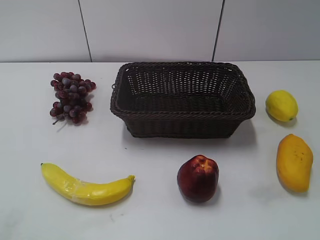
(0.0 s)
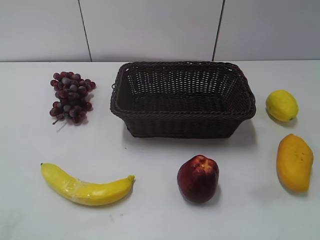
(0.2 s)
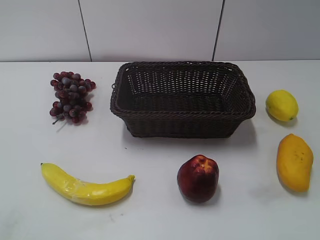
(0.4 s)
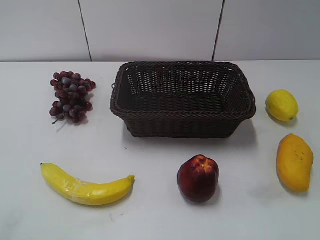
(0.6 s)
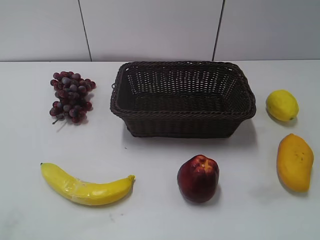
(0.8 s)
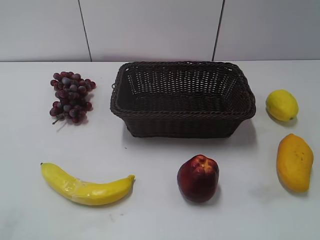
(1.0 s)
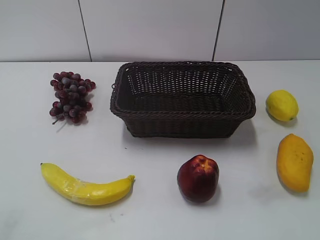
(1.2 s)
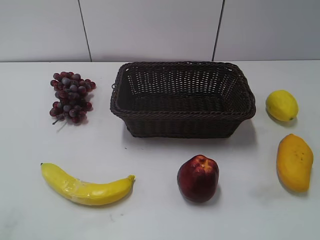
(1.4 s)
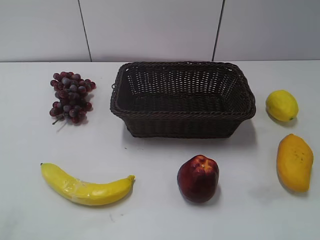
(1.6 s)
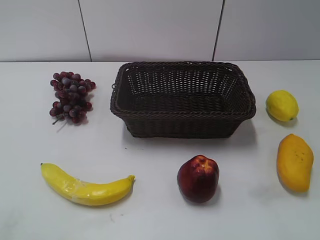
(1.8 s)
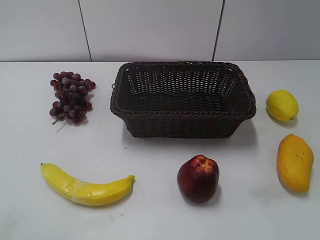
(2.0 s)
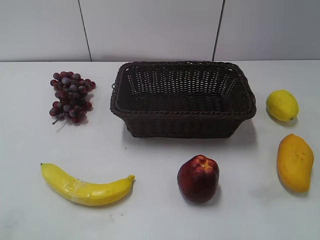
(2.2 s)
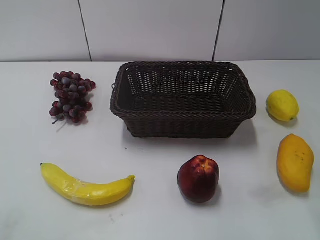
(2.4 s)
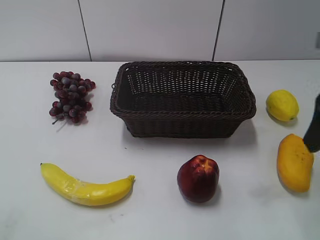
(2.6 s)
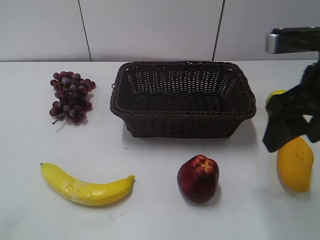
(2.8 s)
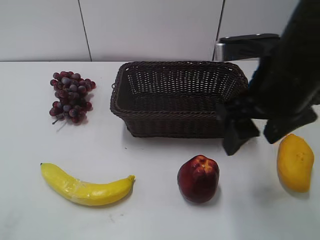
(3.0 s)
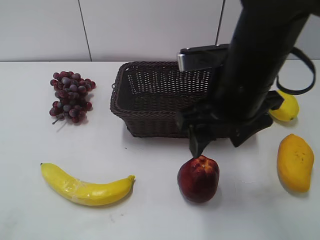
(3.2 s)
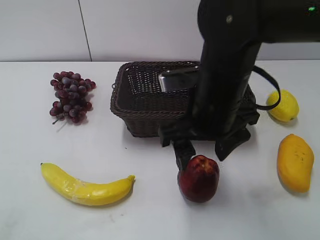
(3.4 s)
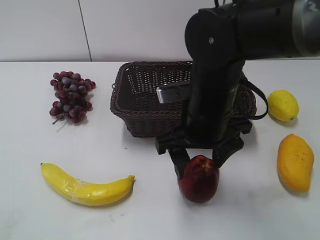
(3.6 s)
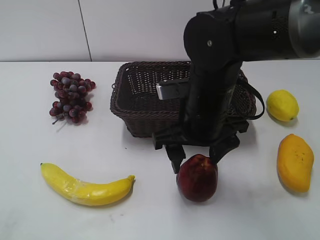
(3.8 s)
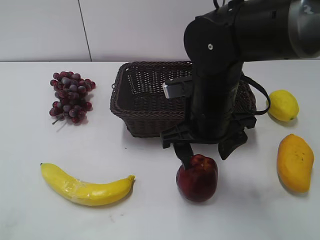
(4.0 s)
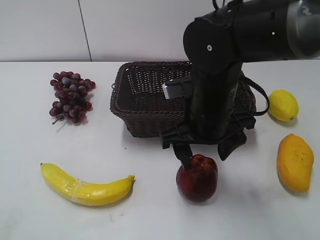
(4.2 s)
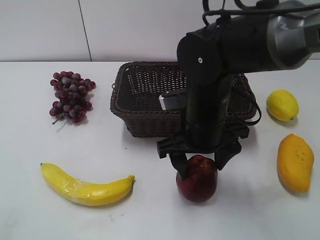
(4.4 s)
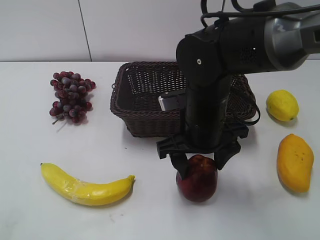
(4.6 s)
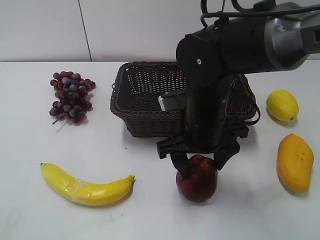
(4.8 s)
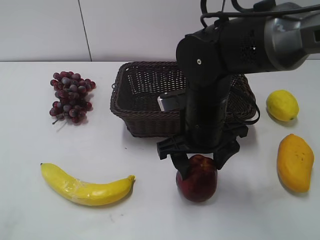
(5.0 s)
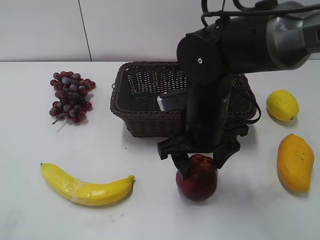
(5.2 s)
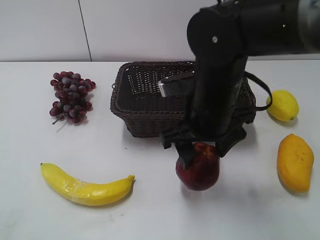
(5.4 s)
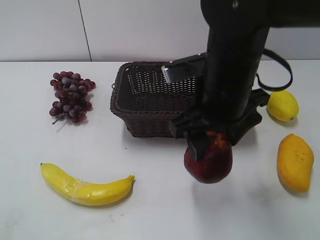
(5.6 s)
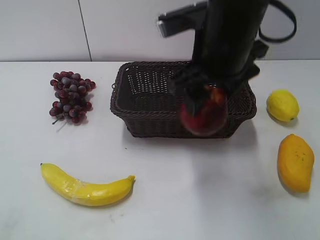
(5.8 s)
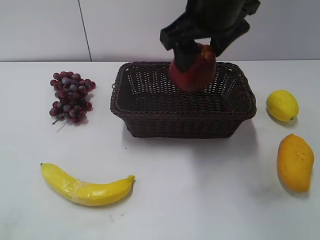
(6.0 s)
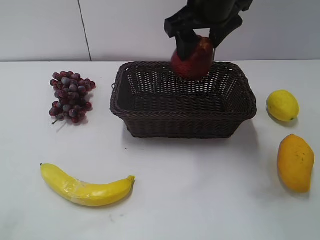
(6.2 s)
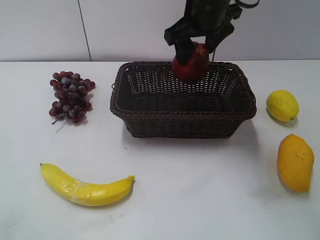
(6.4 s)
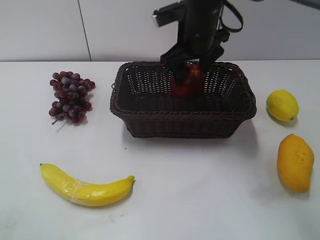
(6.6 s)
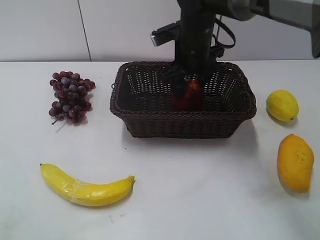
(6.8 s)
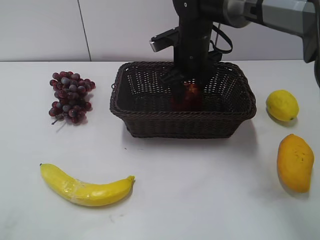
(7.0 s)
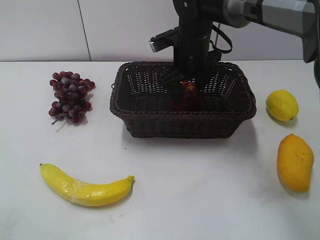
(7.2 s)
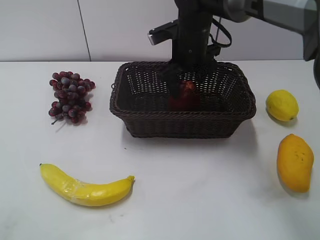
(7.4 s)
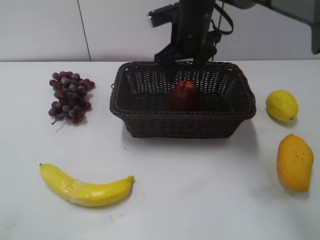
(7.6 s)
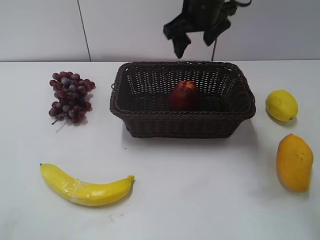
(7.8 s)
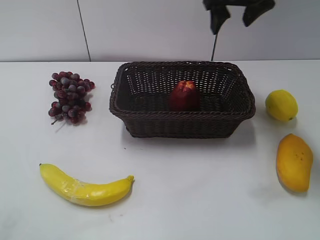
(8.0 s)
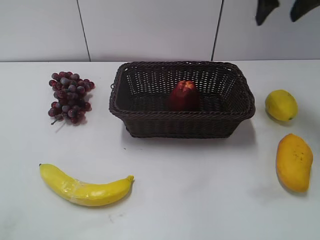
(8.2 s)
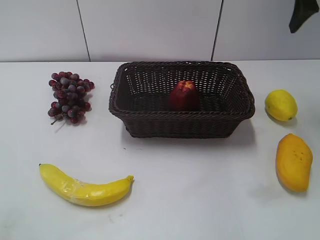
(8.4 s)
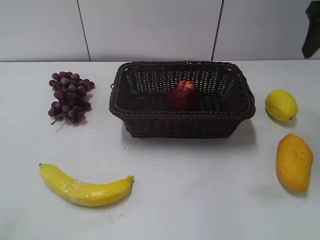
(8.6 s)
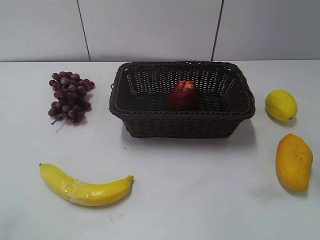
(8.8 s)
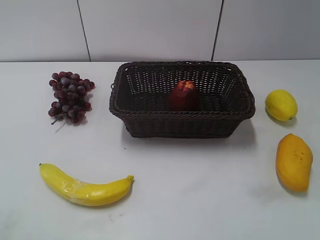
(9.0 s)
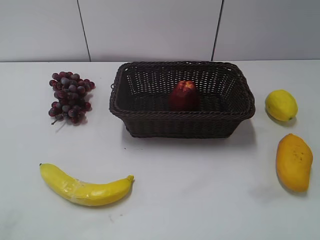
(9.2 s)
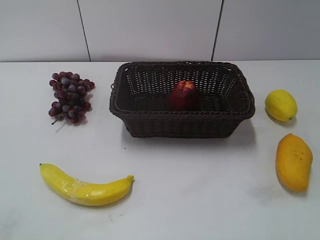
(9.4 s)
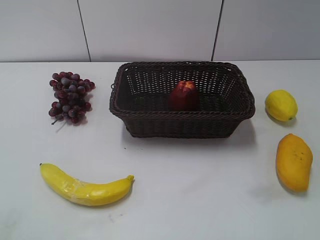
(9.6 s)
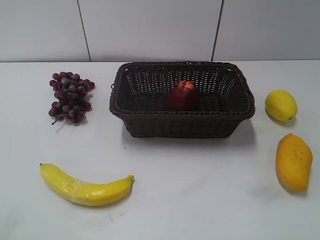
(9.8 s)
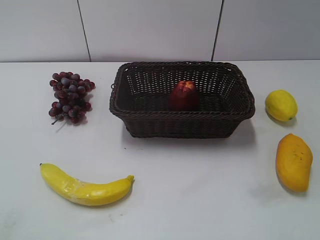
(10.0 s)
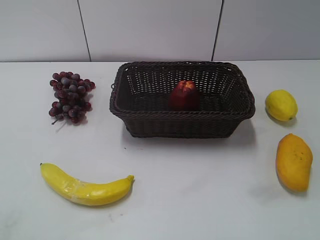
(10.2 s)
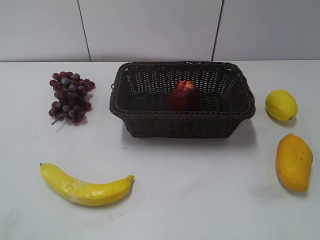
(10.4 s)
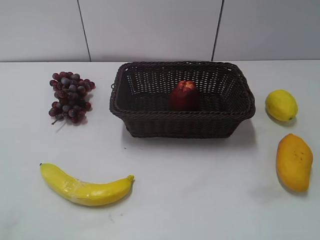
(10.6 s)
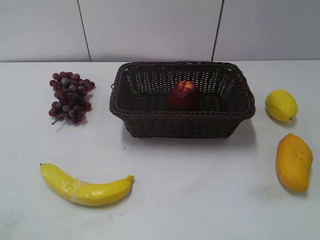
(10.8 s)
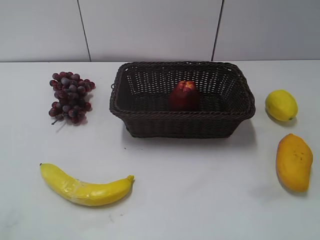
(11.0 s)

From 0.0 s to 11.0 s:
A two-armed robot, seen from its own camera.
Step, from 2.6 s to 4.6 s: Grasp the apple with right gripper.
Step, from 4.8 s to 7.0 s: Place the apple in the basket with right gripper.
From 1.6 s to 3.2 s: The right gripper moves to the left, forward and downward, roughly 30 cm.
From 3.2 s to 4.8 s: The left gripper closes up; the right gripper shifts about 10 cm downward.
From 4.8 s to 6.2 s: The right gripper travels upward and forward by roughly 20 cm.
From 6.2 s to 7.8 s: The right gripper shifts some 5 cm forward, goes downward and returns, roughly 15 cm each way, and opens.
From 7.8 s to 9.4 s: The right gripper is displaced backward and to the right by approximately 40 cm.

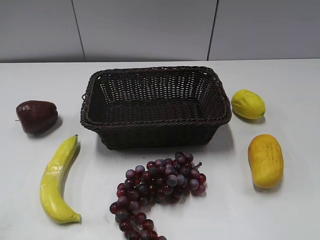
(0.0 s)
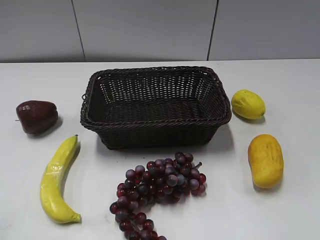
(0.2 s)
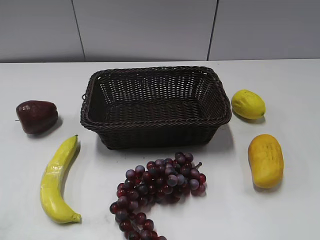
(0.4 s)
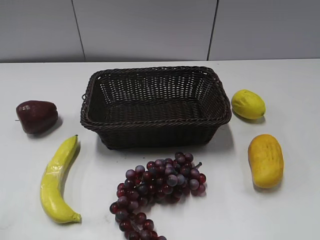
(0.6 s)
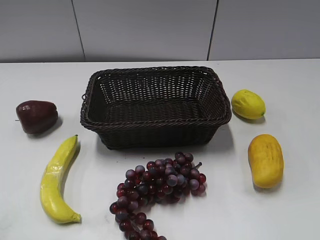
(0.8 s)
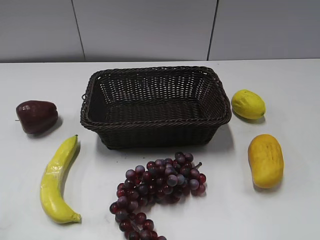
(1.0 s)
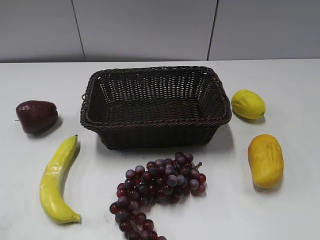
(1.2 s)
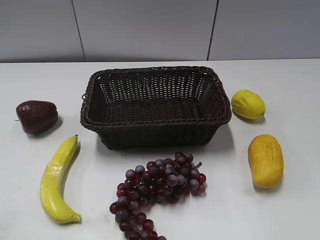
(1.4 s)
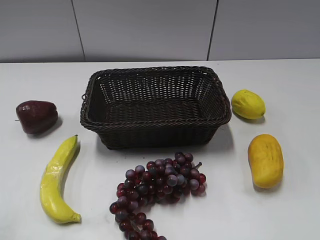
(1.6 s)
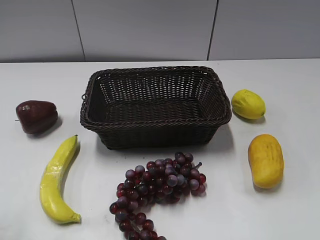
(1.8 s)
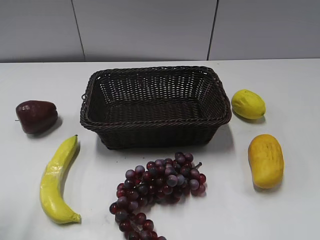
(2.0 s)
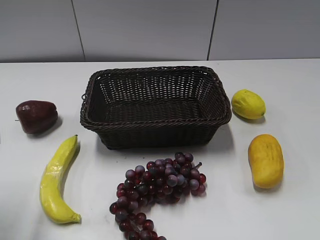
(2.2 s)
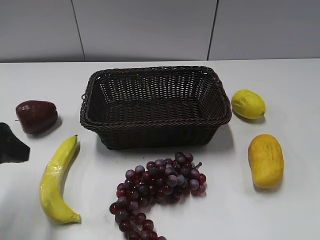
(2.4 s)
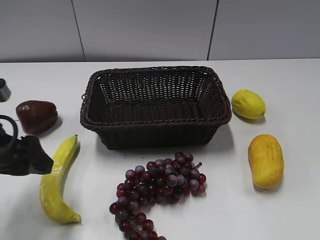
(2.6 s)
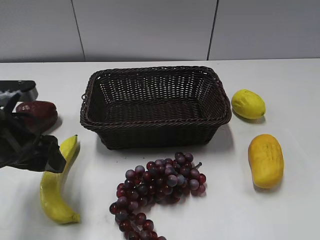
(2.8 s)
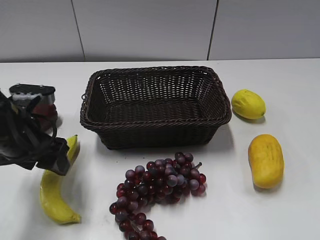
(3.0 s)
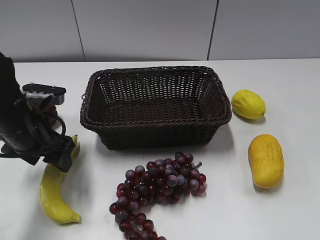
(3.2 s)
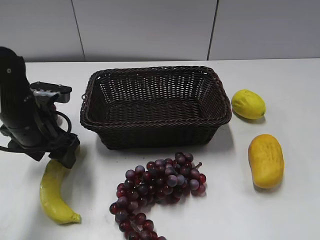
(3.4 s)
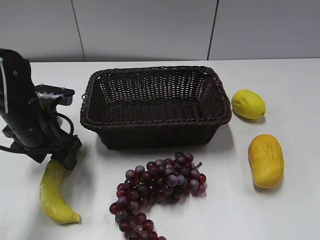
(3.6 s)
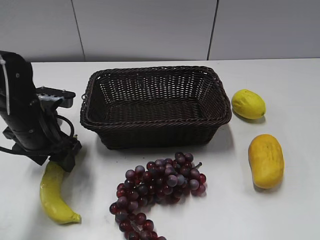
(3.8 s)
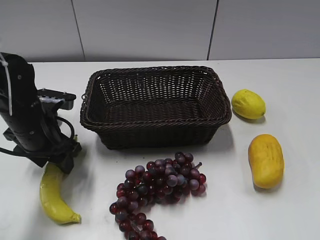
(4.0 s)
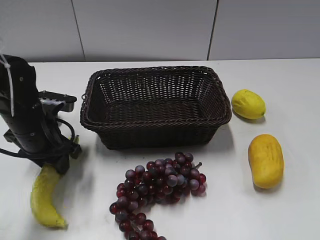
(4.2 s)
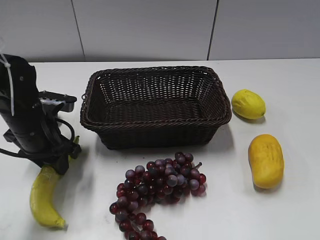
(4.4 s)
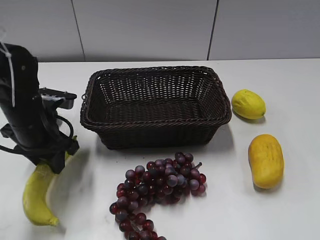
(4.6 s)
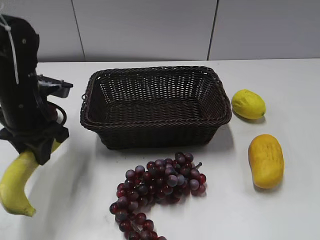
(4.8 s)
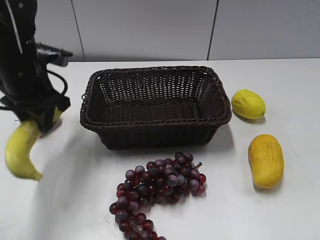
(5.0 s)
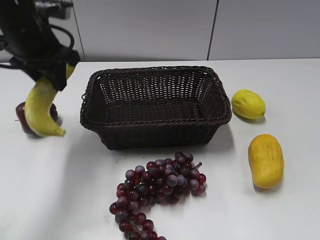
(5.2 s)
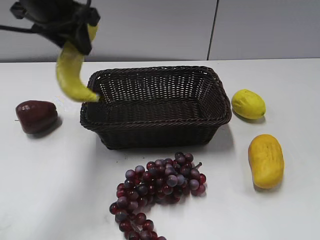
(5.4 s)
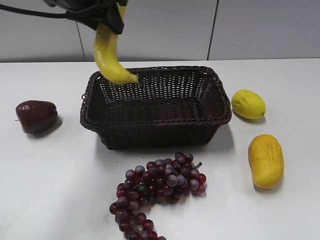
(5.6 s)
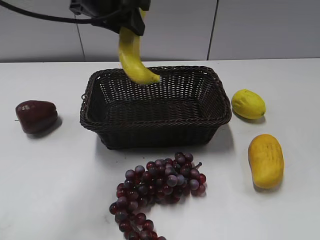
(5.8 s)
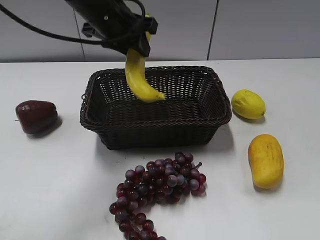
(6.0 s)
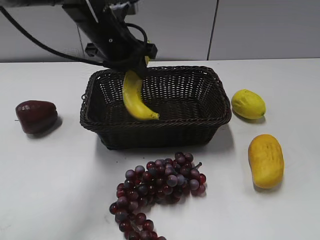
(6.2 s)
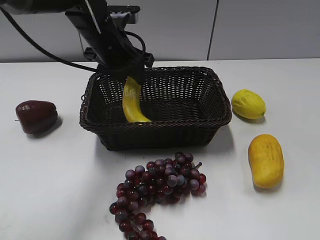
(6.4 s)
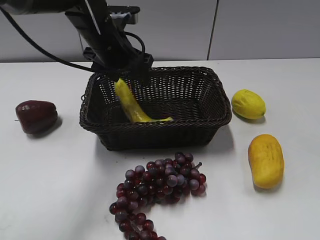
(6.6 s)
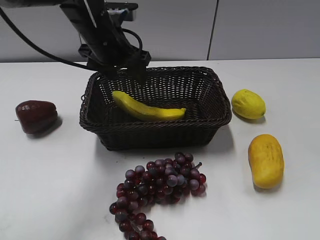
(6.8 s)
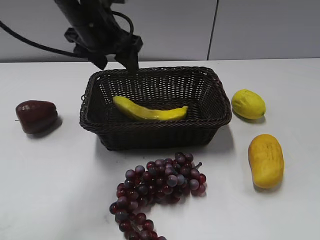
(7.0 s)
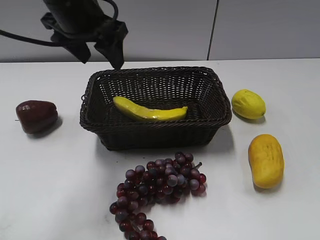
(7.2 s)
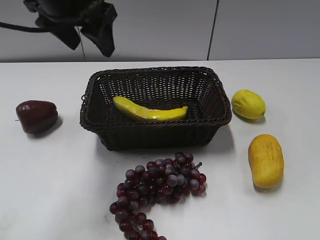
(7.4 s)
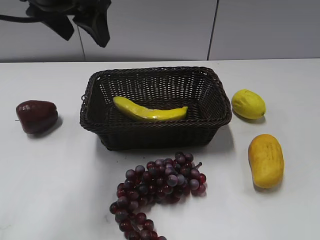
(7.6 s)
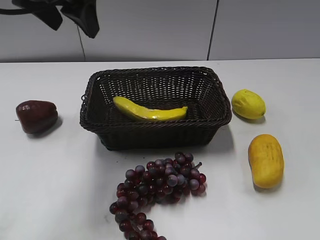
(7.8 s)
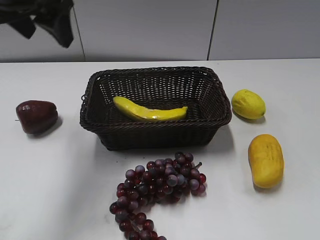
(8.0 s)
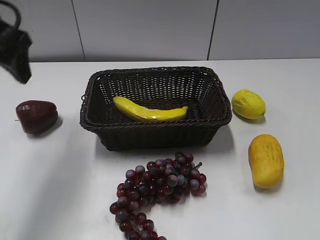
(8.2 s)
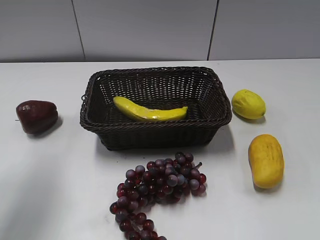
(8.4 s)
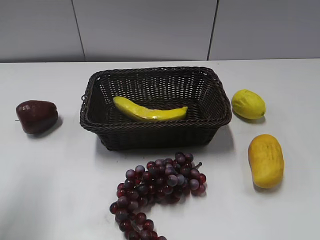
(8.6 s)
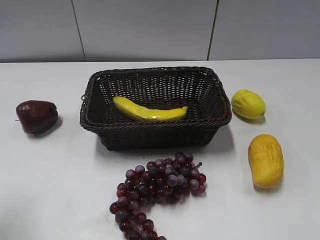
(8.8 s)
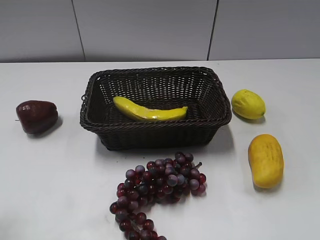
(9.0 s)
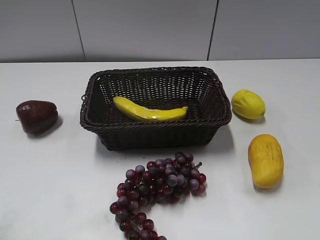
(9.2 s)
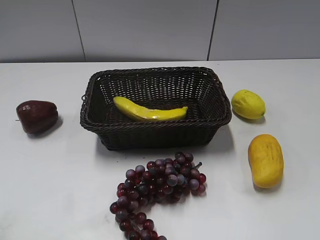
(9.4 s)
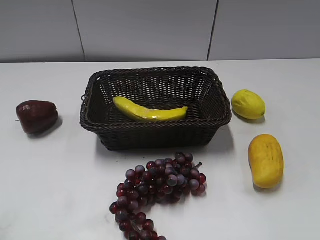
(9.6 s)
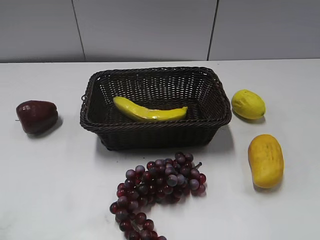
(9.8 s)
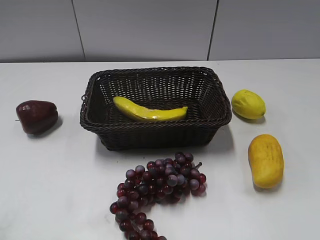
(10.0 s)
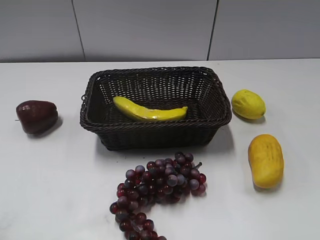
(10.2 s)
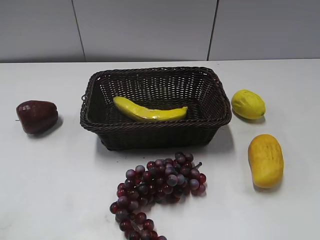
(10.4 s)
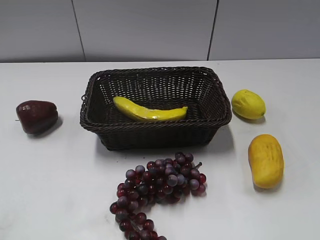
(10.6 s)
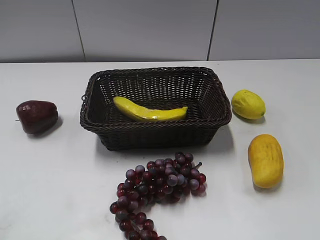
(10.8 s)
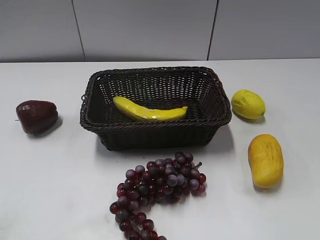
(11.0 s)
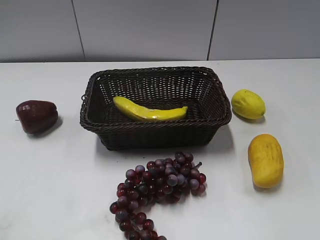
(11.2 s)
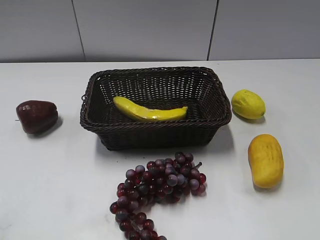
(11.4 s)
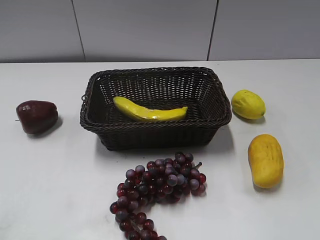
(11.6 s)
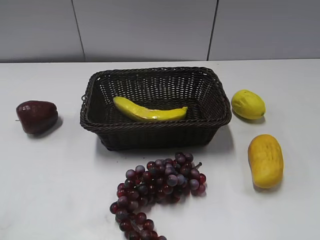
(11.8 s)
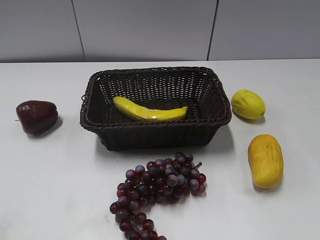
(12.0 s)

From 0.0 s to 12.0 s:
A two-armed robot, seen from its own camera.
Step, from 2.2 s to 4.4 s: Grasp the banana with left gripper.
Step, from 4.6 s to 6.6 s: Place the banana in the basket with left gripper.
From 1.6 s to 3.0 s: The left gripper is displaced forward, downward and to the right by some 25 cm.
From 3.0 s to 4.4 s: The left gripper moves about 5 cm, and closes up.
From 4.4 s to 6.0 s: The left gripper shifts approximately 20 cm upward, to the right and forward.
From 6.0 s to 7.6 s: The left gripper heads upward and backward, covering approximately 10 cm, and opens up.
From 7.6 s to 9.0 s: The left gripper moves backward and to the left, approximately 25 cm.
